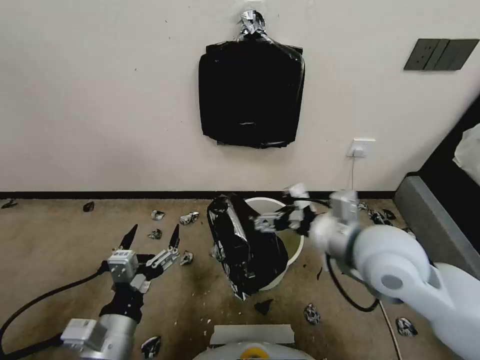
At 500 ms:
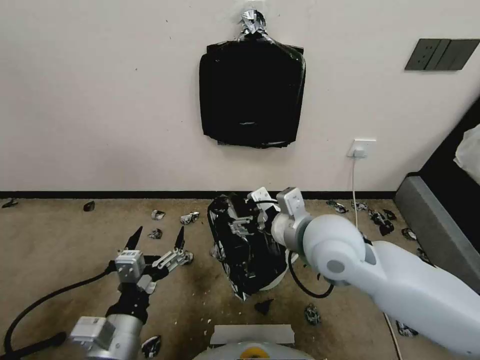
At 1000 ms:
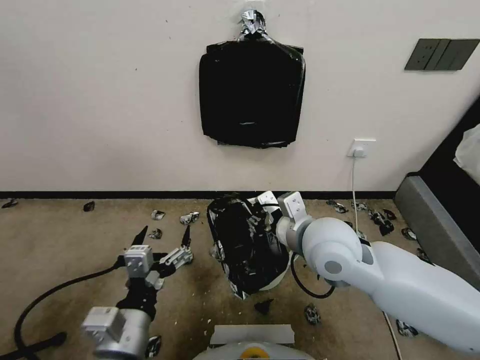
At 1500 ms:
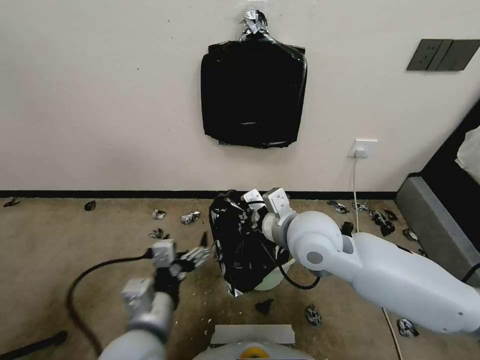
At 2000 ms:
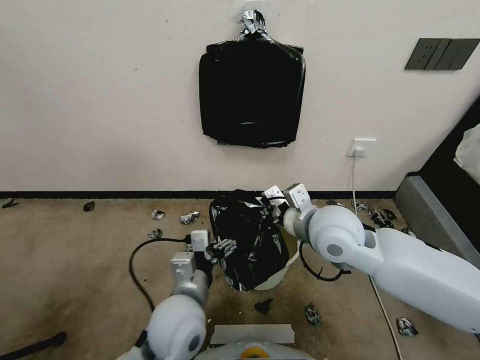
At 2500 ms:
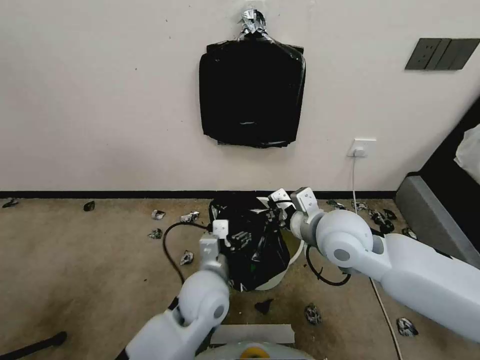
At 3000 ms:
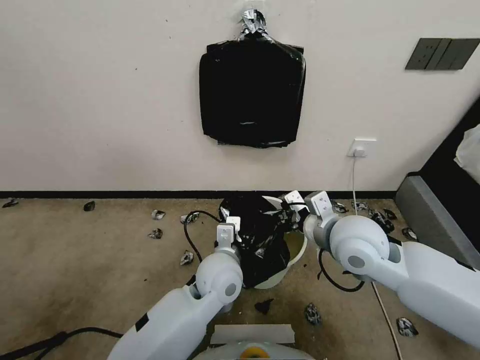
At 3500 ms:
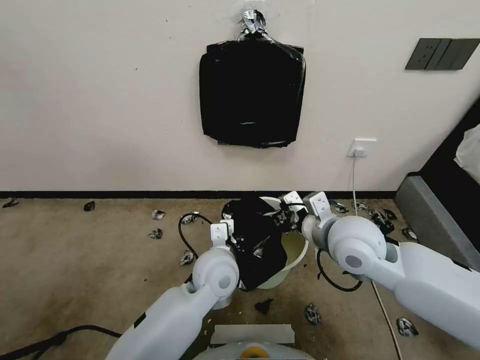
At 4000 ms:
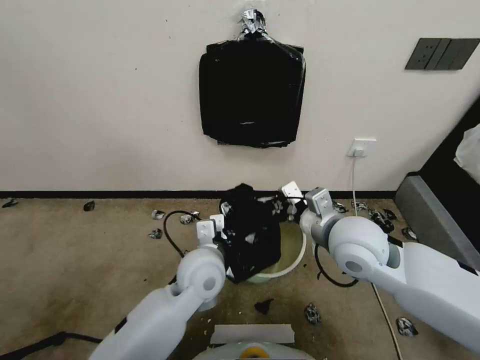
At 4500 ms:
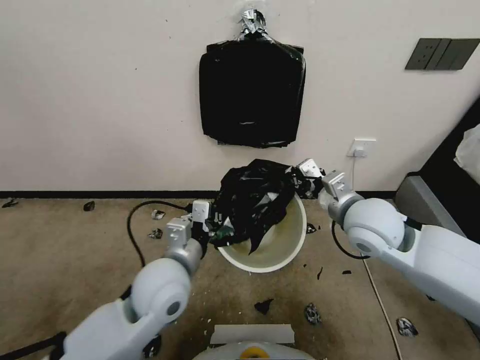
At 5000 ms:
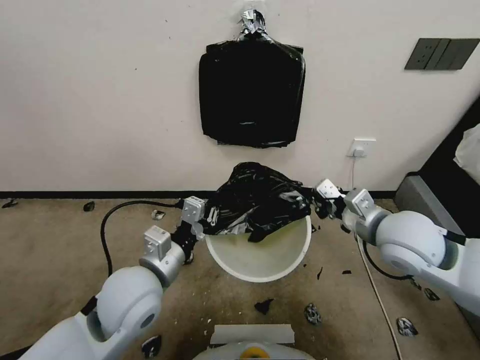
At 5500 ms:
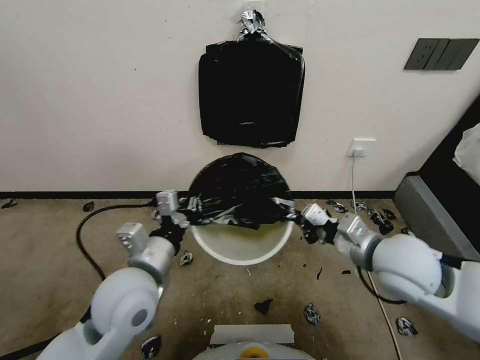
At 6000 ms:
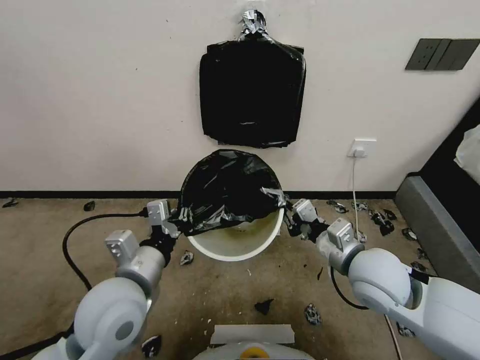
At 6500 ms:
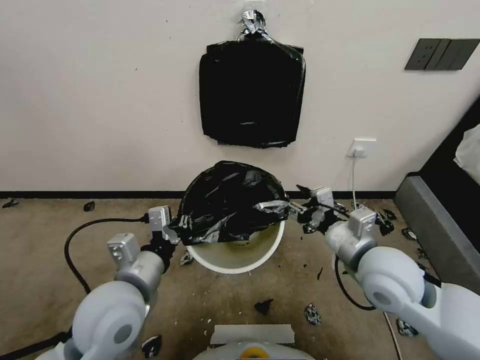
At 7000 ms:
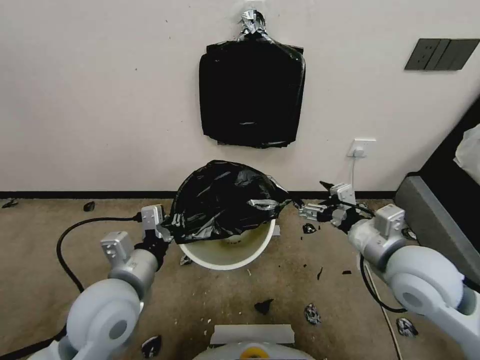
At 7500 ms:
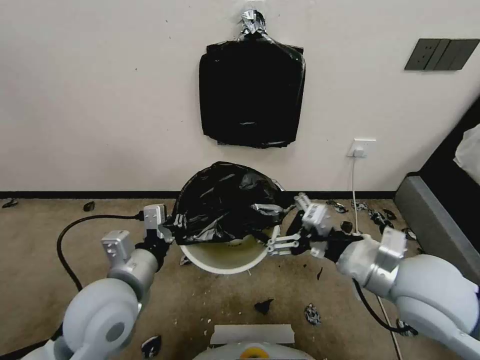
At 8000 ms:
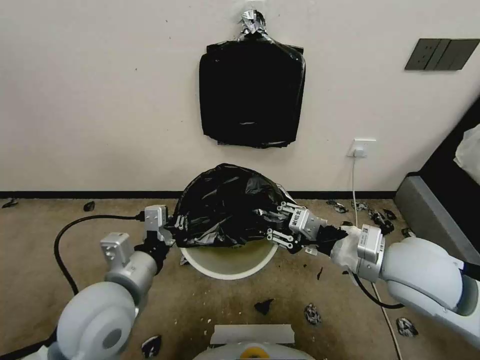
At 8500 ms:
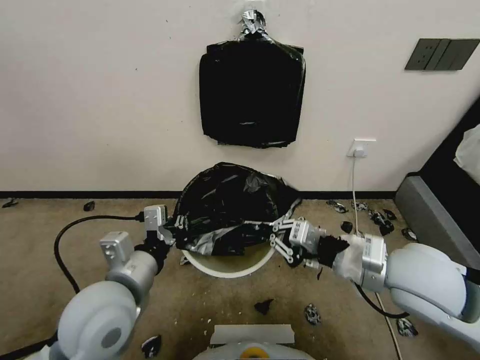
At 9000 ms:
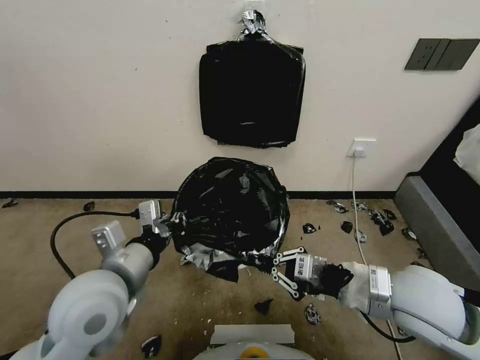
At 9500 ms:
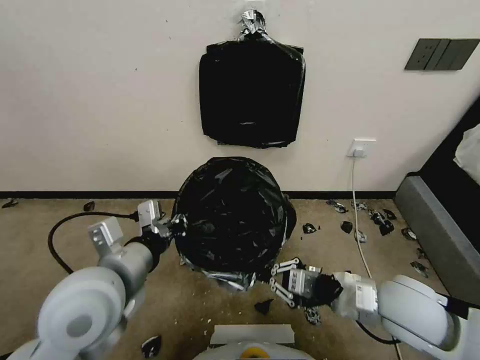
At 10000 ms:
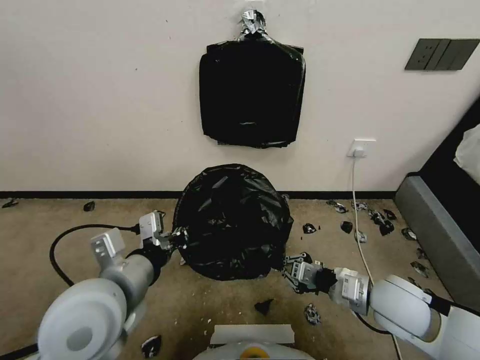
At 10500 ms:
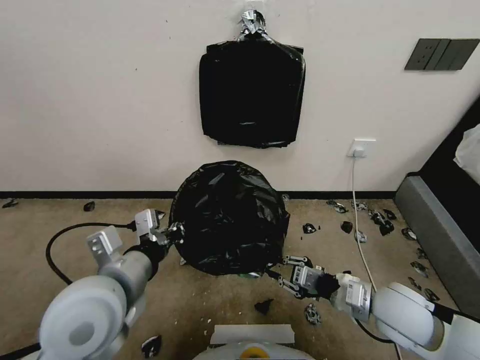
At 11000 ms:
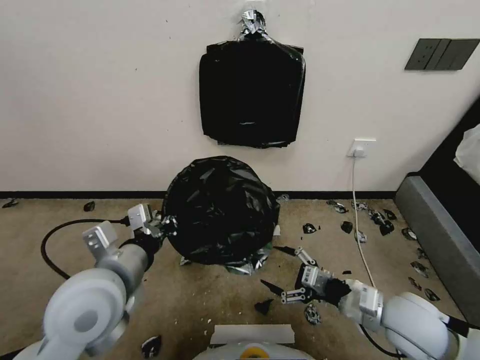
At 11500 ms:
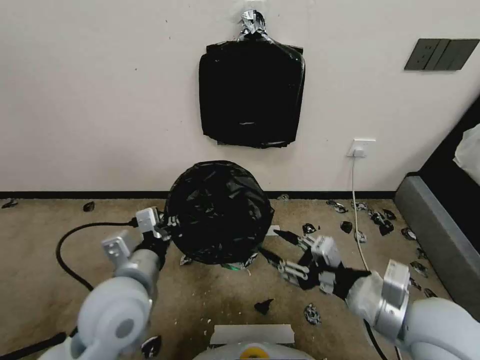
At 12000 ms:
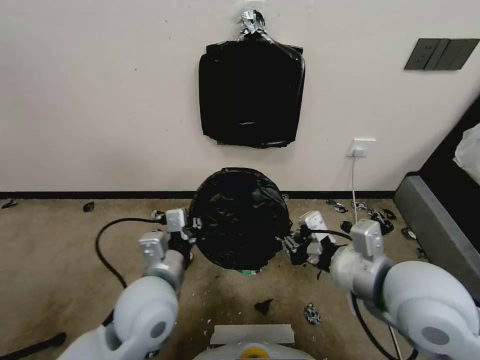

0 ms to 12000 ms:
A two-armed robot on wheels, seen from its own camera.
Task of the whole recording: Place a trash bag onto the trash bin.
0 ms to 2000 ms: The right gripper travels forward and to the left by some 10 cm, and closes up. Meanwhile the left gripper travels to the right and forward by about 15 cm.
2000 ms to 4000 ms: The left gripper shifts approximately 10 cm forward, and closes up.
4000 ms to 6000 ms: The right gripper is displaced downward by roughly 5 cm. Meanwhile the left gripper is displaced to the left, backward and upward by some 15 cm.
6000 ms to 8000 ms: The right gripper moves upward, roughly 10 cm, and opens and closes again.
8000 ms to 10000 ms: The right gripper shifts roughly 15 cm downward, and closes its fingers.
10000 ms to 12000 ms: The right gripper is displaced upward by roughly 15 cm, and opens, then closes again. Meanwhile the left gripper heads downward and to the right, covering approximately 10 cm.

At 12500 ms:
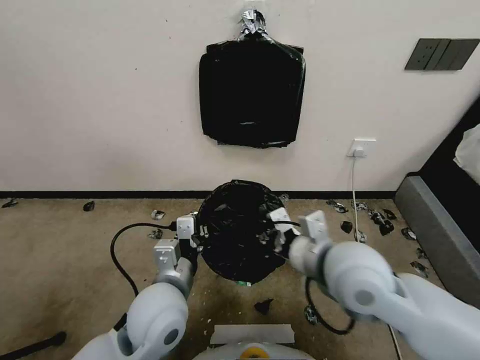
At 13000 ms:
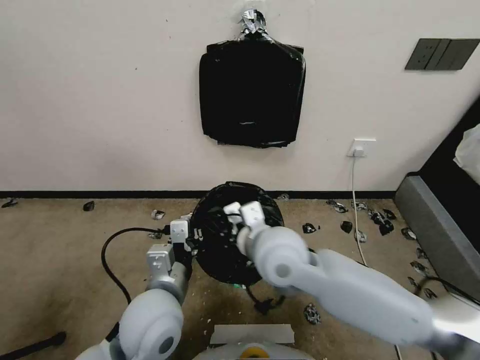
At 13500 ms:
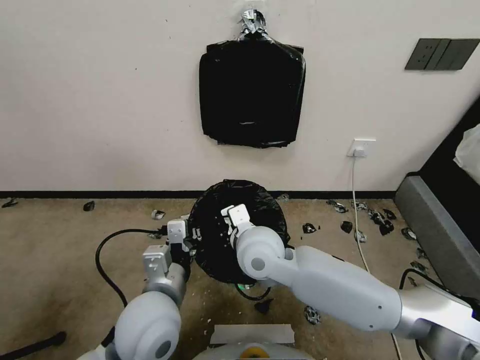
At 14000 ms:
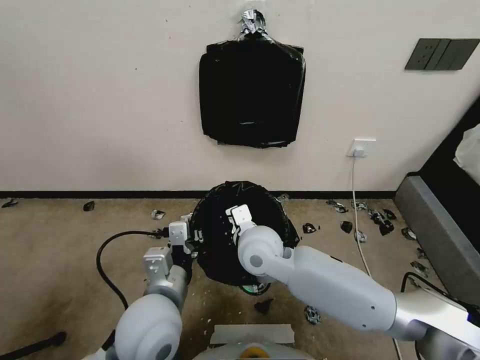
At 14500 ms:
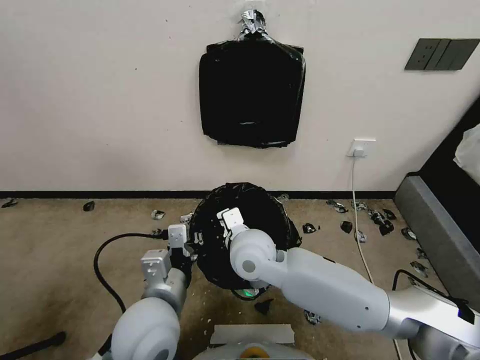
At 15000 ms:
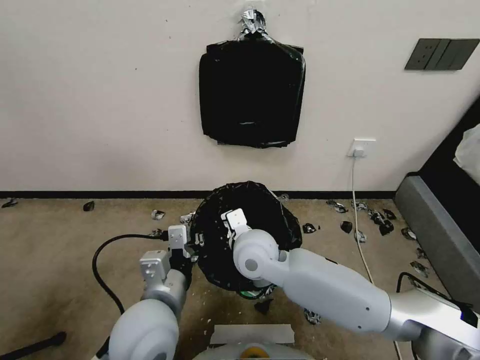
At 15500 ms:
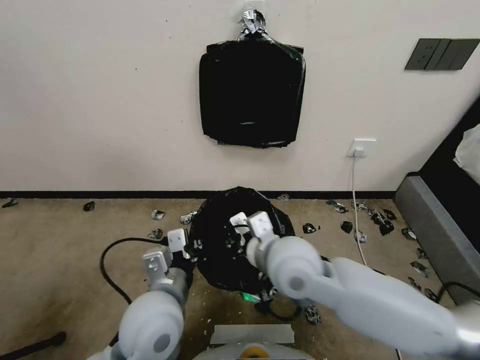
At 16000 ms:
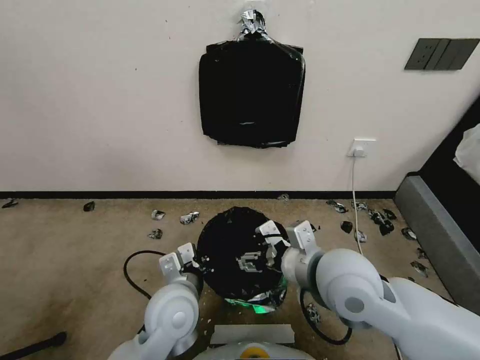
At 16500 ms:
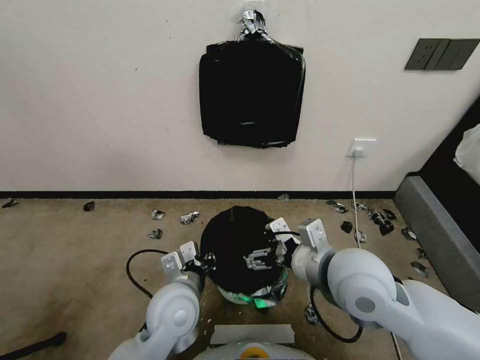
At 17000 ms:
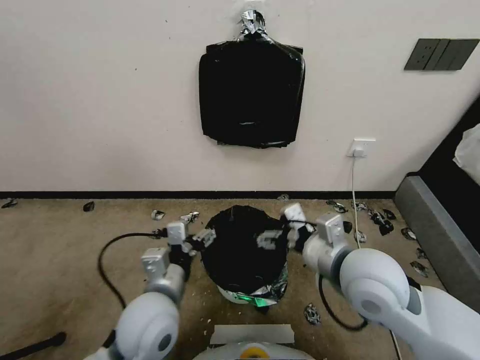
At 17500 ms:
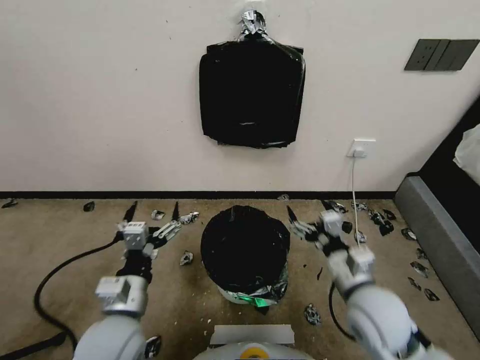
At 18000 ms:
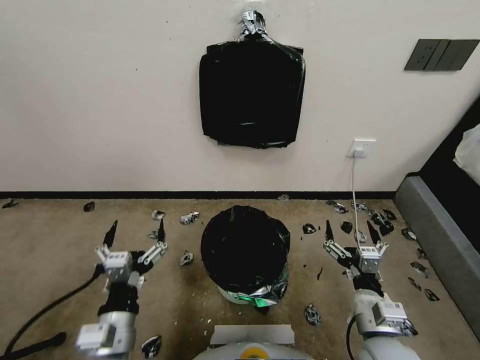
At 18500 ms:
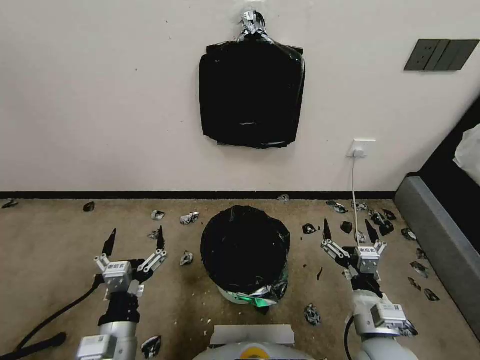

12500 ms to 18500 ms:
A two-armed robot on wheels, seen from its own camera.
Task of the whole recording: Place a trash bag onto the trash bin.
12500 ms to 14500 ms: The right gripper travels to the left, downward and forward by about 20 cm.
14500 ms to 16500 ms: The left gripper shifts about 5 cm downward, while the right gripper is displaced to the right, backward and upward by approximately 20 cm, and opens up.
16500 ms to 18500 ms: The right gripper moves downward, backward and to the right, about 20 cm; the left gripper is displaced backward and to the left by about 15 cm, and opens its fingers.
